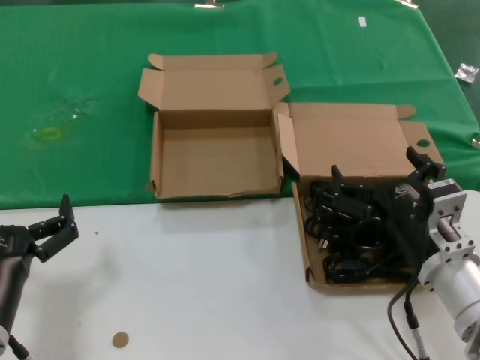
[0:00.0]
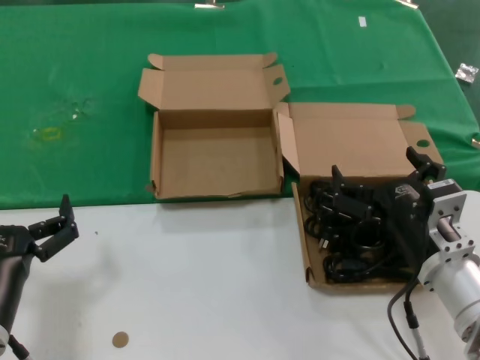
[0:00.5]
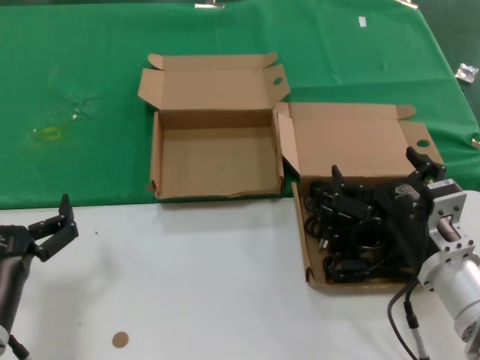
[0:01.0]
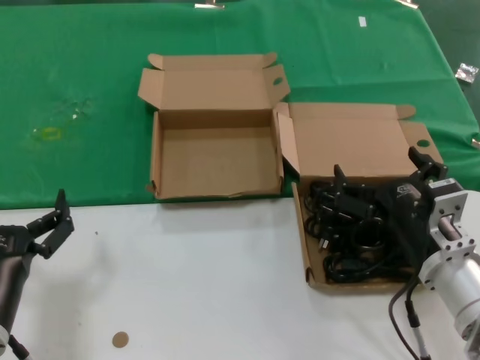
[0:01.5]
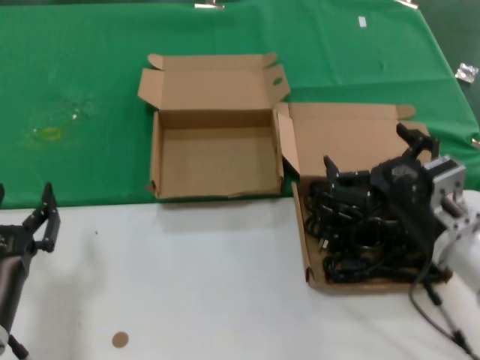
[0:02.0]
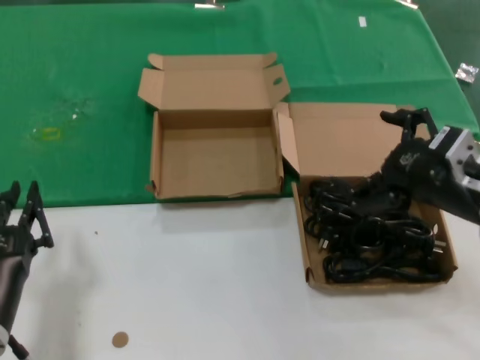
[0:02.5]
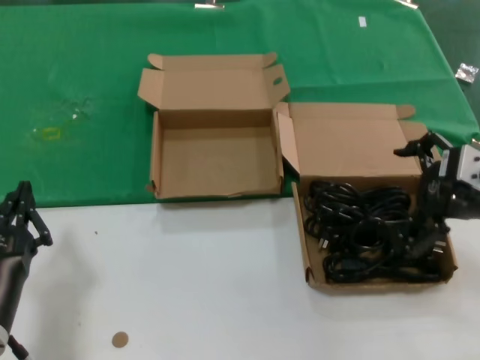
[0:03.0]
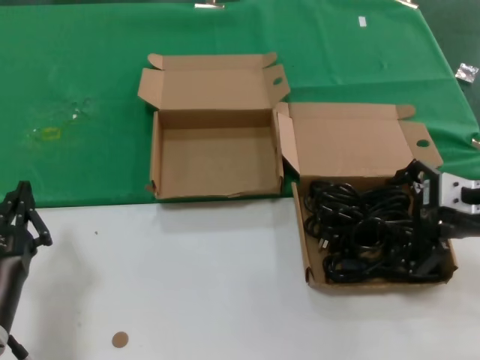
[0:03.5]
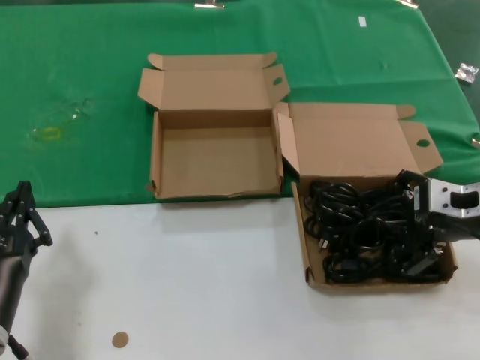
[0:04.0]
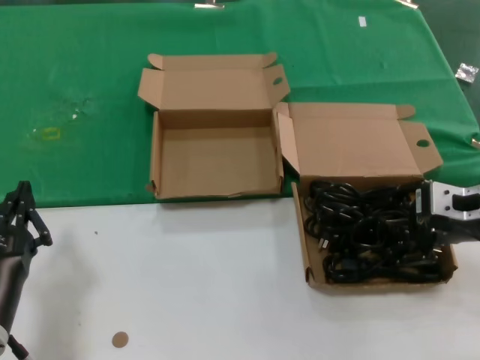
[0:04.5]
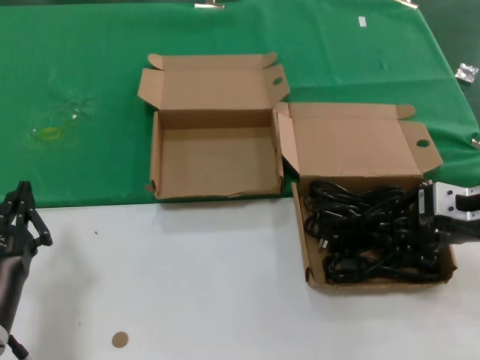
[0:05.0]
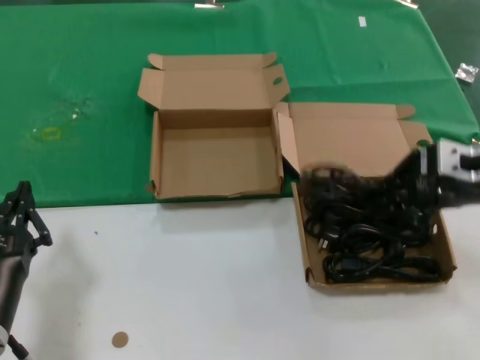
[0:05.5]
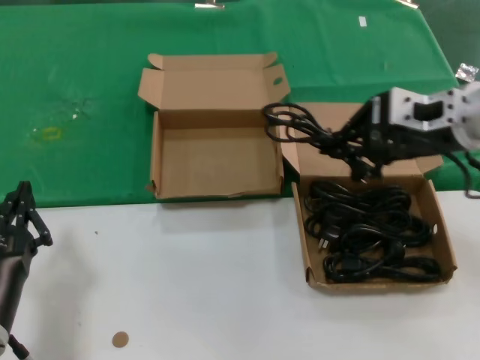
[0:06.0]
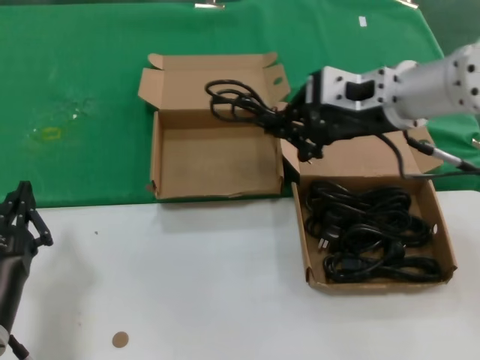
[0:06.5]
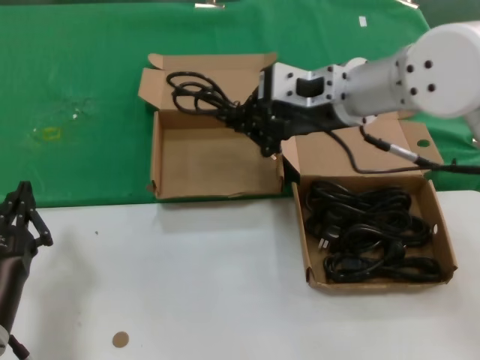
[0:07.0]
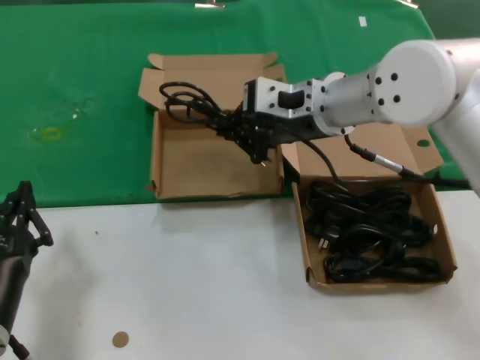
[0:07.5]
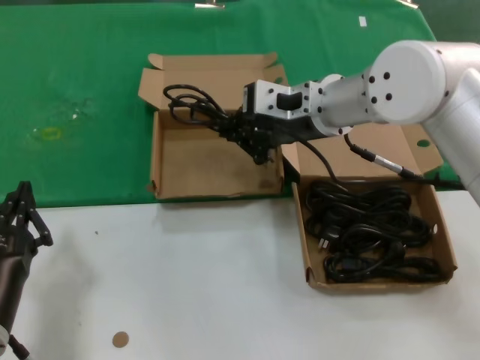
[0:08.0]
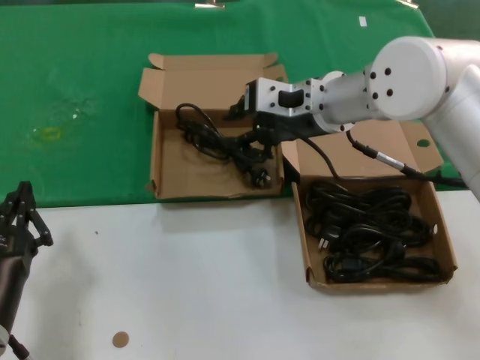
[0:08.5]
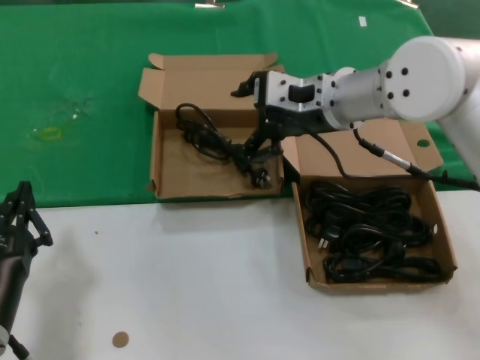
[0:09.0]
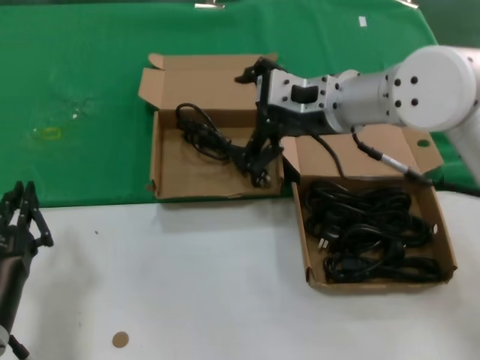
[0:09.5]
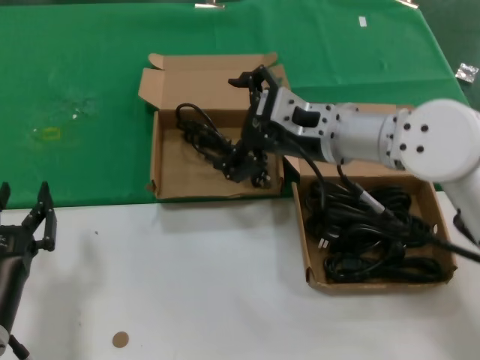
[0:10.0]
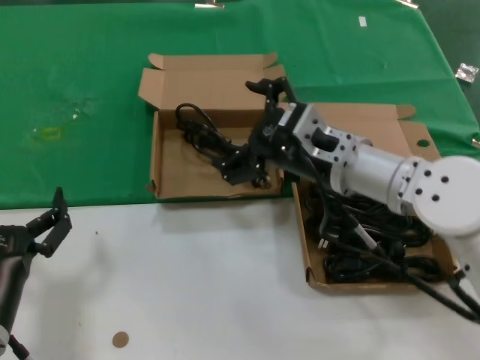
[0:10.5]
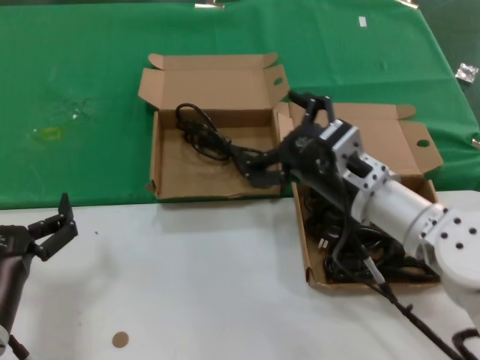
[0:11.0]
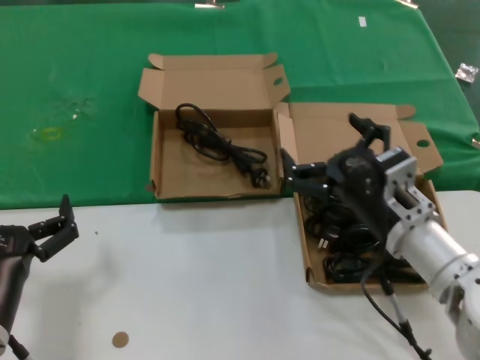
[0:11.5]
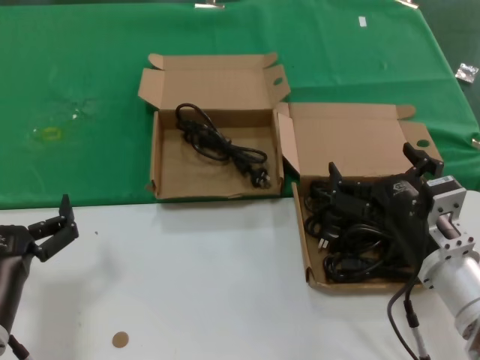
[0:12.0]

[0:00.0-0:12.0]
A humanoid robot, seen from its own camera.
Task of the whole recording: take the parts from the box containing them and put them into an empty box.
Step, 0:00.0 to 0:05.0: Grasp the data cable.
Step, 0:05.5 to 0:09.0: Place the data cable in the another box.
0:00.0 to 0:02.0: The hands move only a little.
0:02.0 to 0:04.0: The right hand is displaced upward, to the right and forward by some 15 cm.
0:04.0 to 0:06.0: The right hand travels upward and to the left by some 10 cm.
0:06.0 to 0:08.0: The right hand heads to the left and forward, covering approximately 15 cm.
0:08.0 to 0:10.0: The right hand changes place by roughly 5 cm.
0:10.0 to 0:12.0: The right hand is displaced downward, backward and to the right by approximately 20 cm.

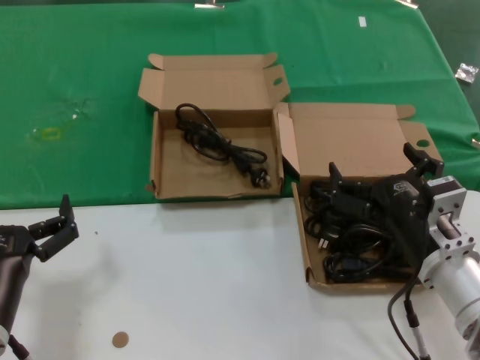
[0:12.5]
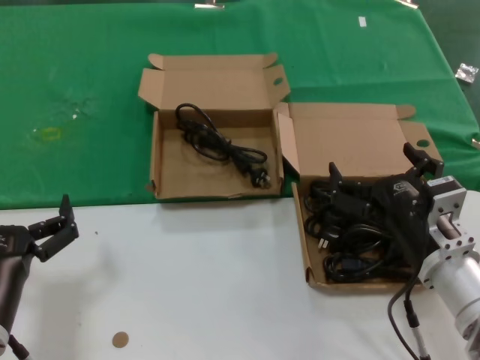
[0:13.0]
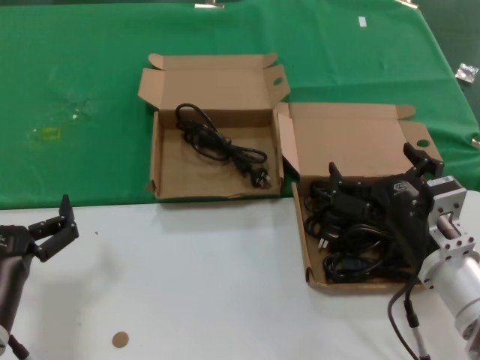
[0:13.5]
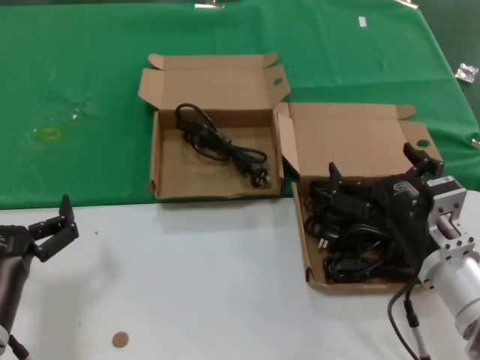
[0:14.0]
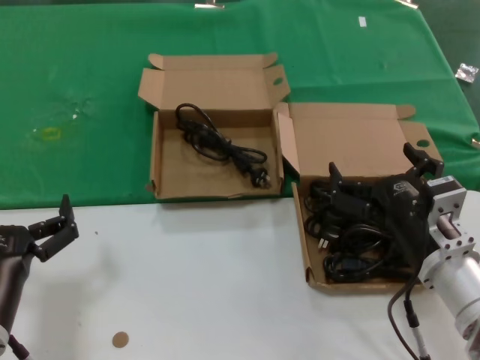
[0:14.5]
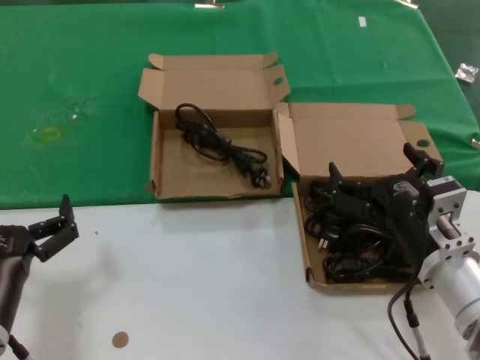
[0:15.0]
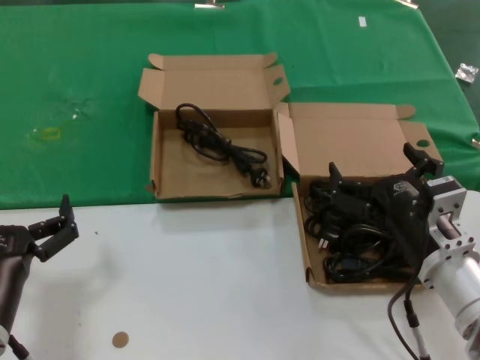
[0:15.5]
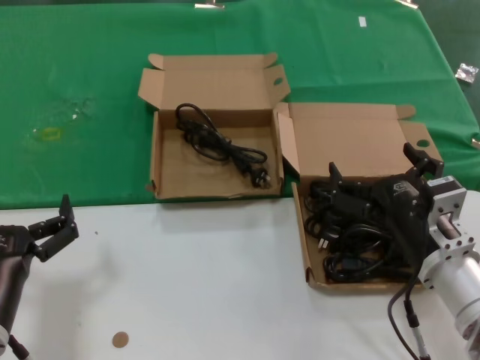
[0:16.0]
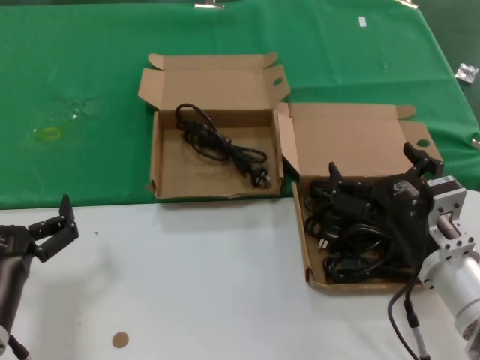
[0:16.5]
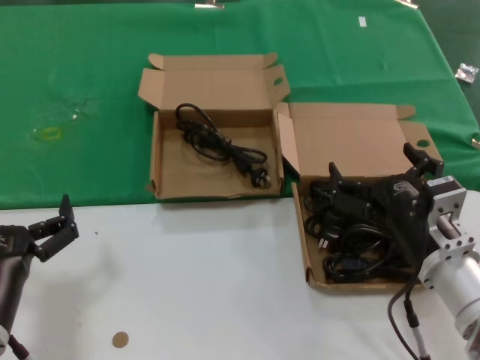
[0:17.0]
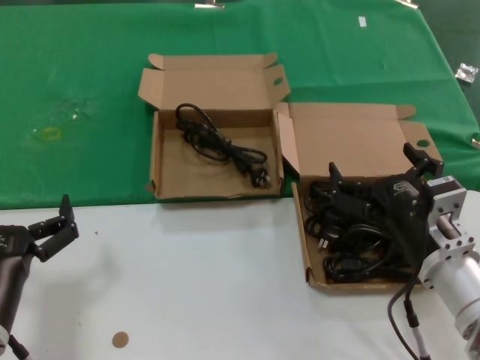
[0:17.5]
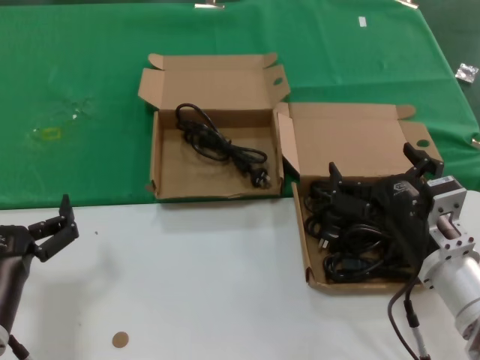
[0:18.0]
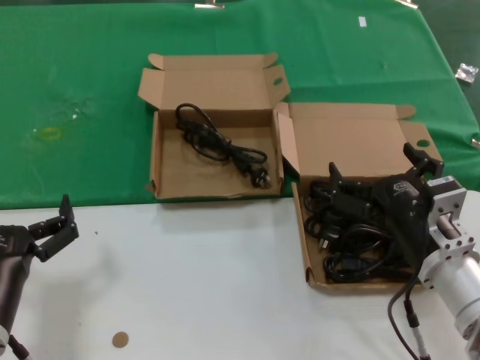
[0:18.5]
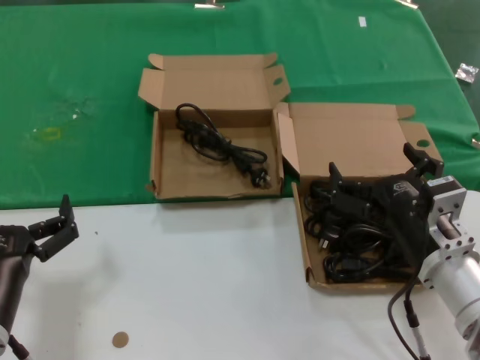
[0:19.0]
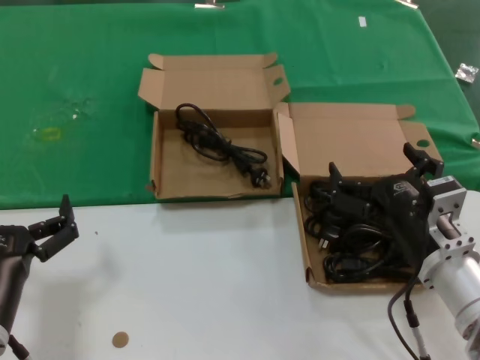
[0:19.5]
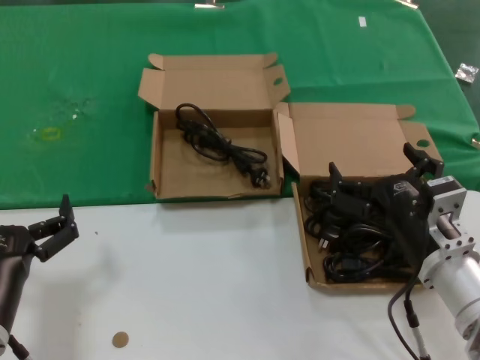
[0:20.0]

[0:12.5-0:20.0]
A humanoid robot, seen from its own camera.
Task of the whole recording: take the parts from the box containing them and put them into an empty box.
0:12.5 to 0:20.0: The two hands keep their place.

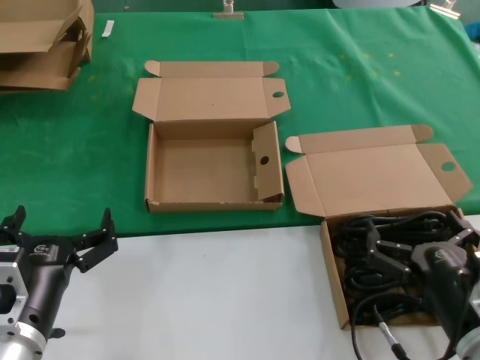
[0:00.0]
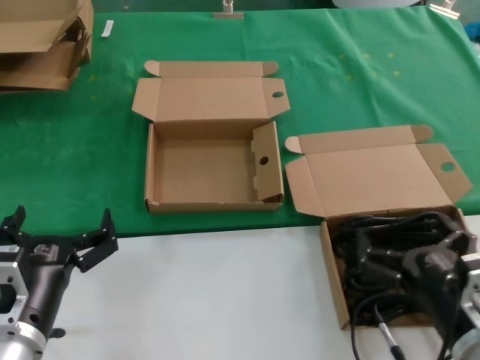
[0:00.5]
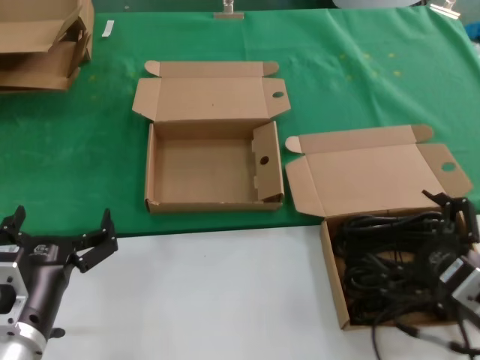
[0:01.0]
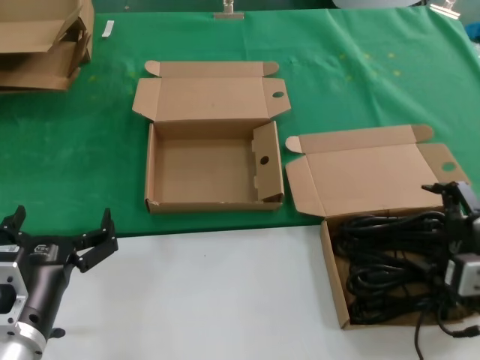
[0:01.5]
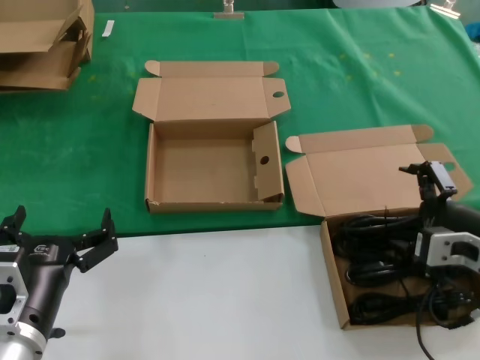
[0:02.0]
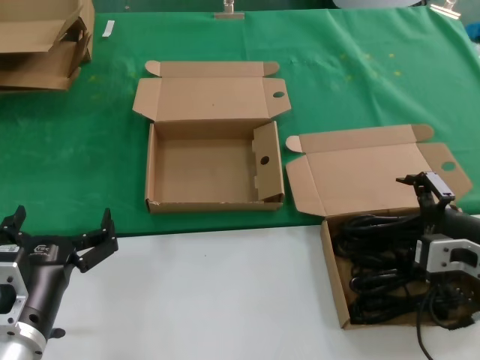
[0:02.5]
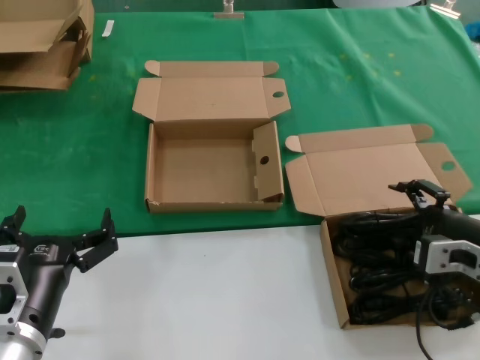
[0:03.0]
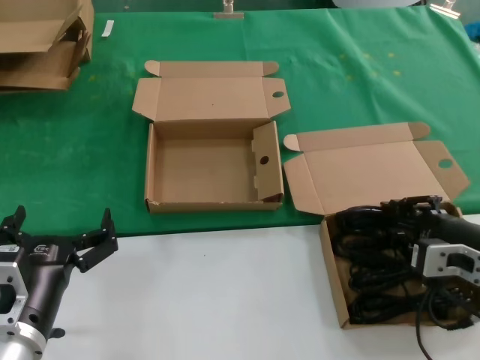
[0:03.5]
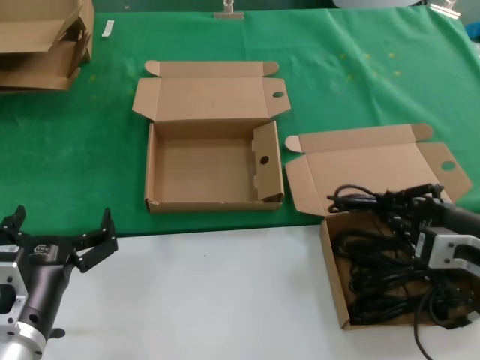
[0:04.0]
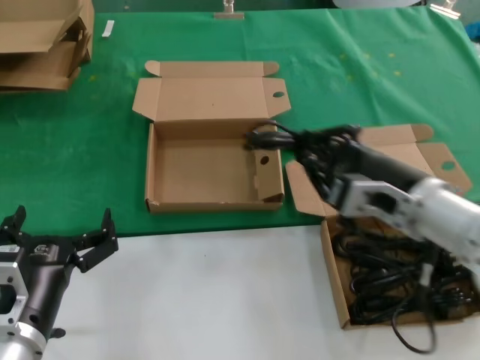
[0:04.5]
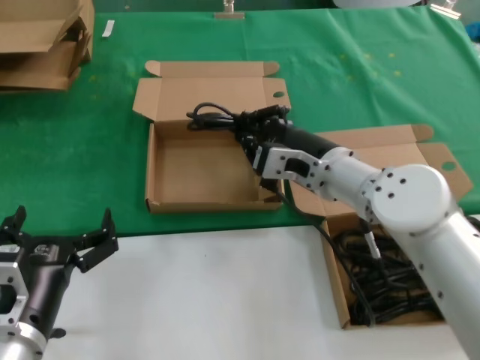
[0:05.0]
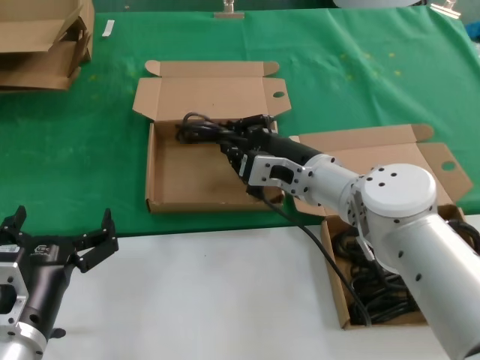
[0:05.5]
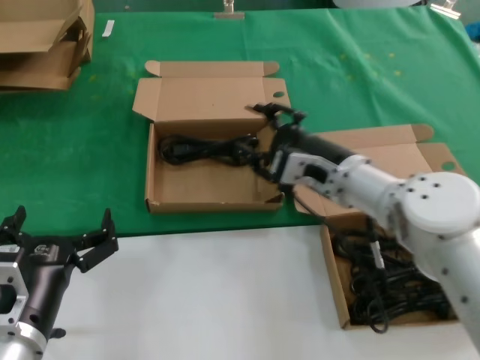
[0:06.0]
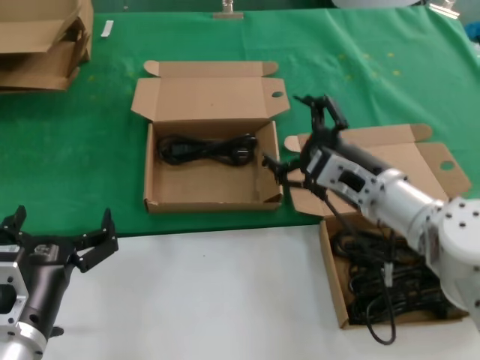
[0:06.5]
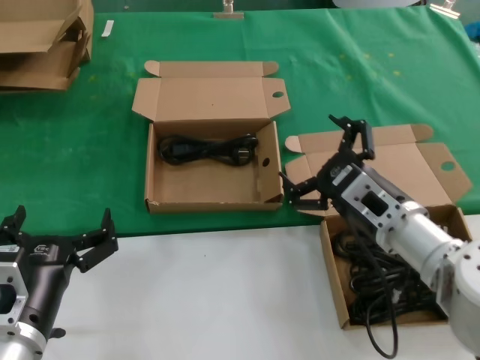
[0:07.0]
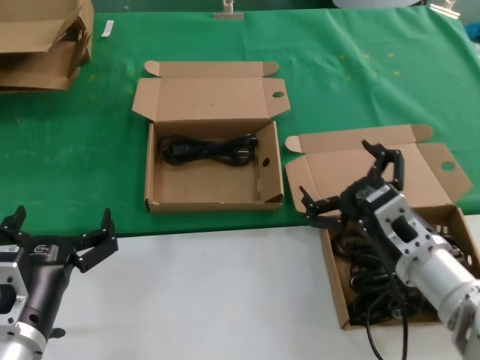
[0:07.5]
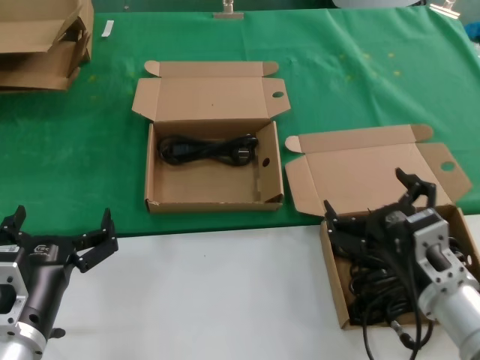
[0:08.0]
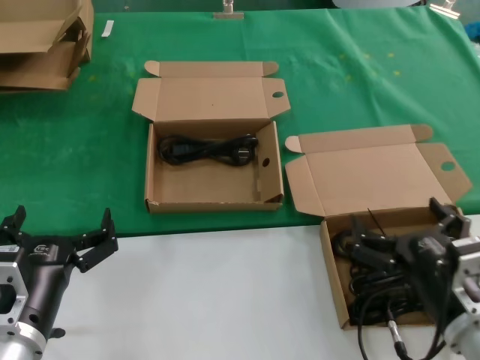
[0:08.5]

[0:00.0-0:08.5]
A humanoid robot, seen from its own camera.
Task of the whole recording: take the parts from the box containing them and put them into an empty box.
Step, 0:00.0 to 0:03.5: Grasp the data cable.
Step, 0:04.0 to 0:05.5: Place the data cable in the another box.
0:00.0 to 0:02.0: The right hand heads forward, upward and to the right, covering approximately 15 cm.
0:02.0 to 0:04.0: The hands move only a little.
0:04.0 to 0:06.5: The right hand shifts some 15 cm to the left and forward.
0:06.5 to 0:08.5: The right hand moves backward and downward, some 20 cm.
